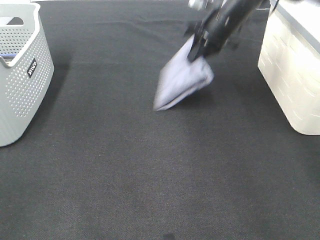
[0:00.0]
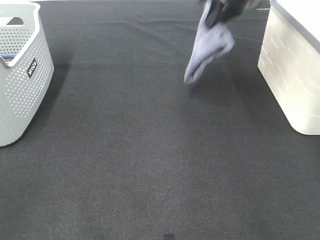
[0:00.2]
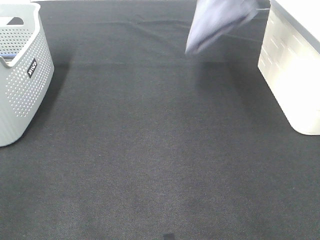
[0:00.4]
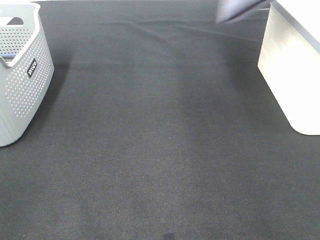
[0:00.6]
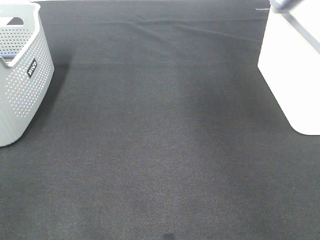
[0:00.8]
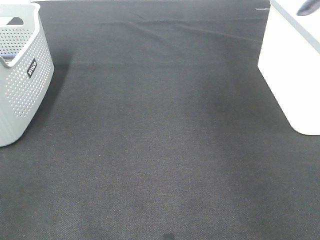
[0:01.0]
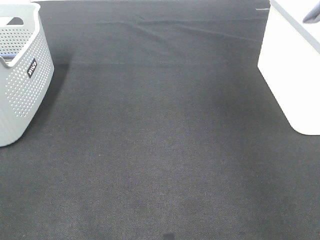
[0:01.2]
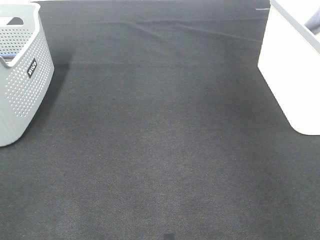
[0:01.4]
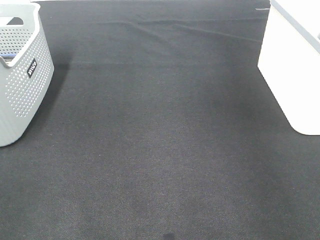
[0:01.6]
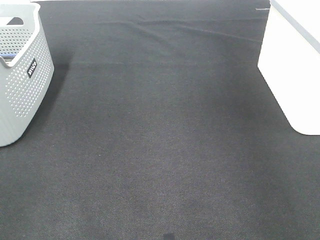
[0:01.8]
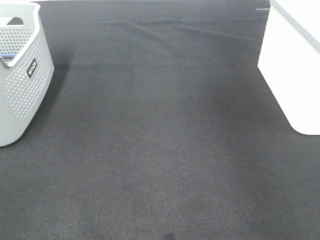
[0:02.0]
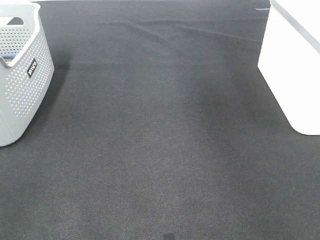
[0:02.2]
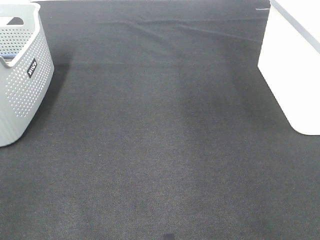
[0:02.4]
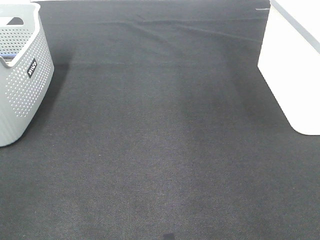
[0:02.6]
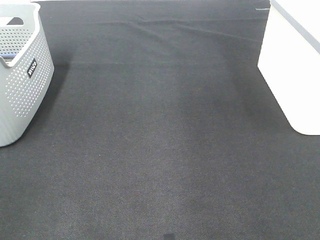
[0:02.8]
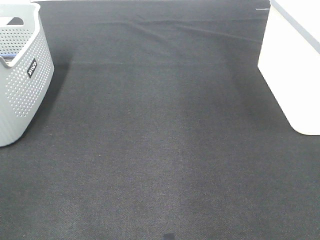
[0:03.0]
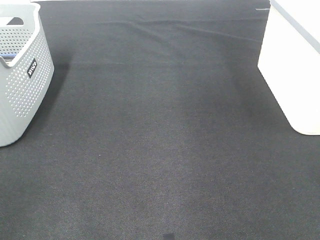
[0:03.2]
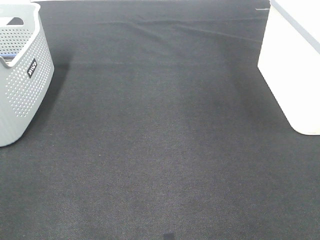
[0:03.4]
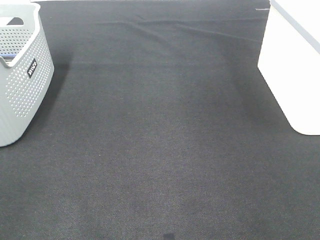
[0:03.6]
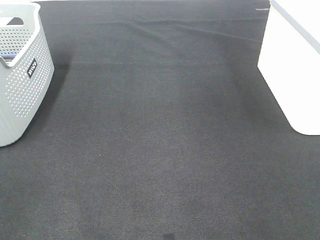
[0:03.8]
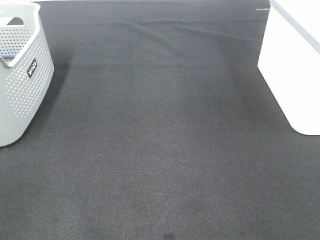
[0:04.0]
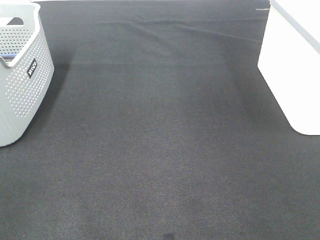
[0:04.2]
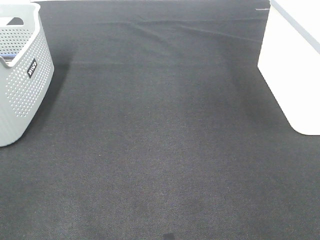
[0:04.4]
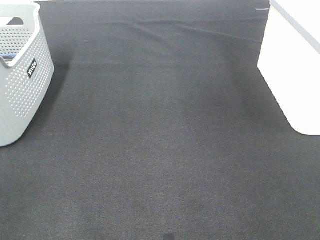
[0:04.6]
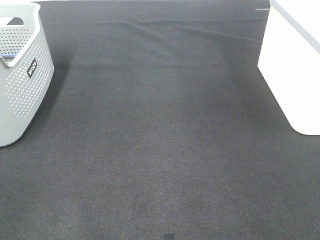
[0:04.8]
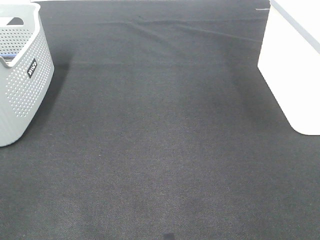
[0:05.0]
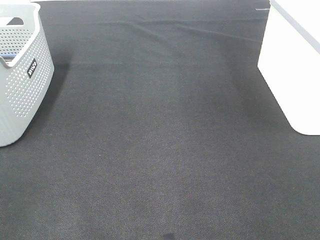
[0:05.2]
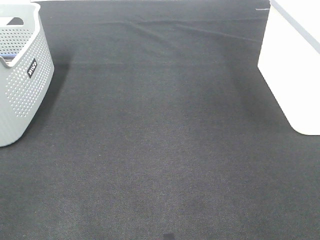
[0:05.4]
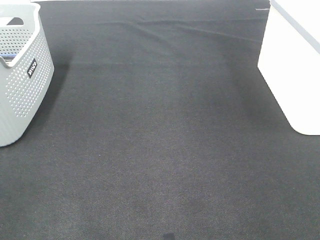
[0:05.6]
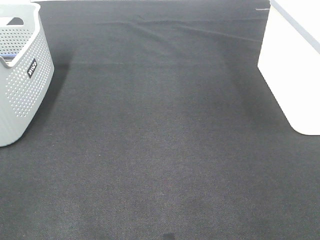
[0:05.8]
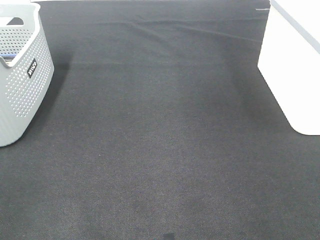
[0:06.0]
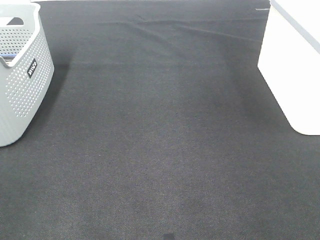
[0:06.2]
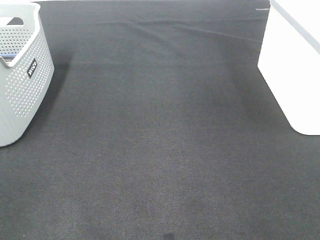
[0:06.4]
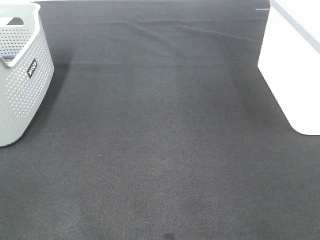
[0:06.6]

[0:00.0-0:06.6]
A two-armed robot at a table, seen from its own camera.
Step, 0:00.0 to 0:01.6: Right hand: place the grey towel in right basket.
0:00.0 to 0:01.6: The right gripper goes approximately 25 cm to the right and upward, and opens up.

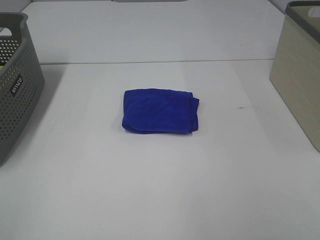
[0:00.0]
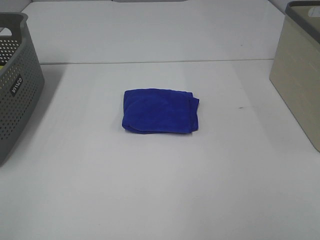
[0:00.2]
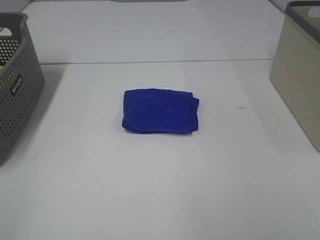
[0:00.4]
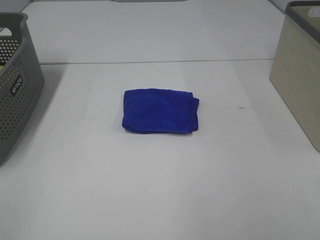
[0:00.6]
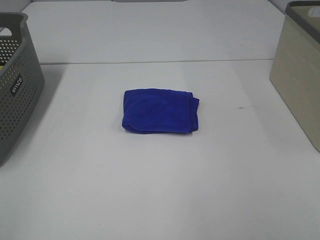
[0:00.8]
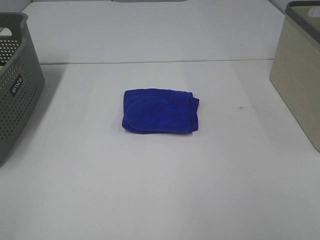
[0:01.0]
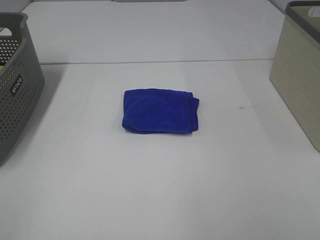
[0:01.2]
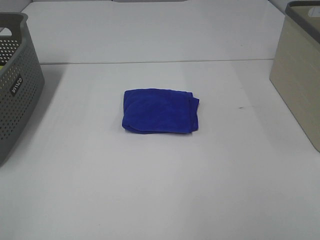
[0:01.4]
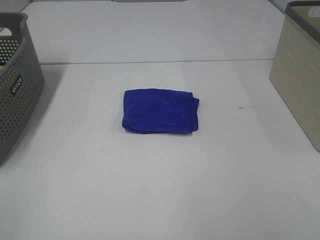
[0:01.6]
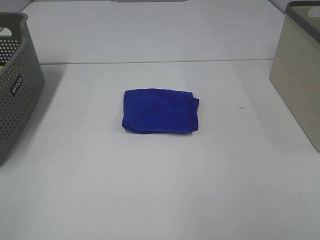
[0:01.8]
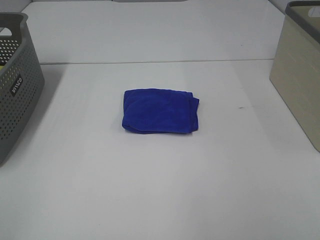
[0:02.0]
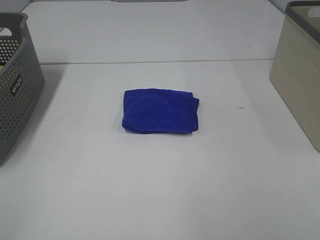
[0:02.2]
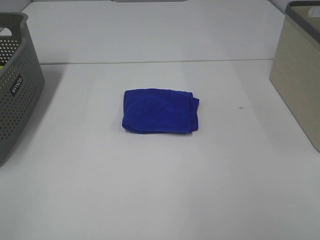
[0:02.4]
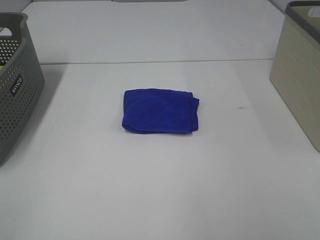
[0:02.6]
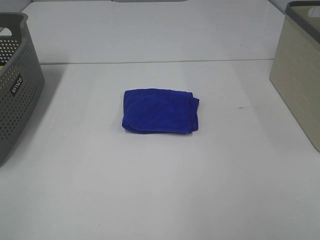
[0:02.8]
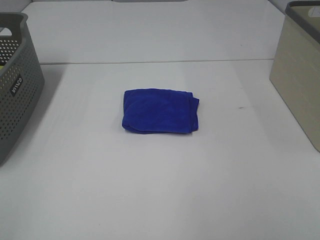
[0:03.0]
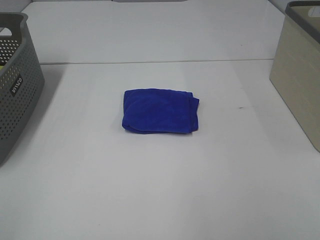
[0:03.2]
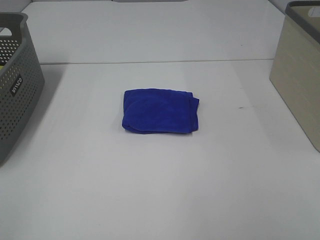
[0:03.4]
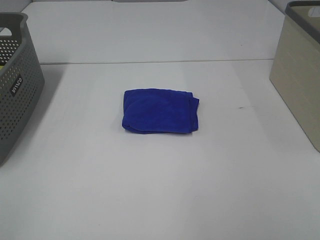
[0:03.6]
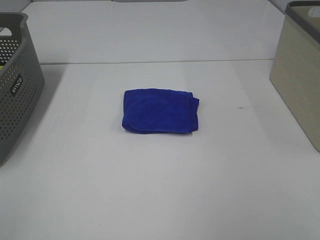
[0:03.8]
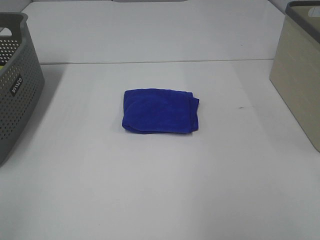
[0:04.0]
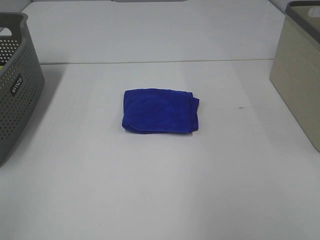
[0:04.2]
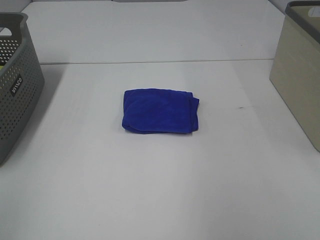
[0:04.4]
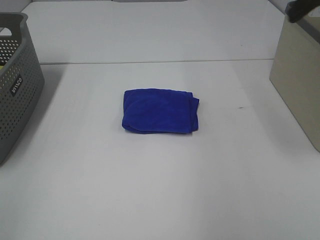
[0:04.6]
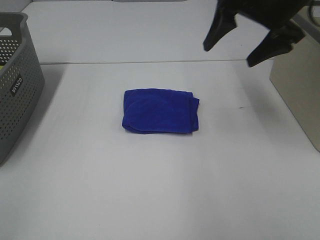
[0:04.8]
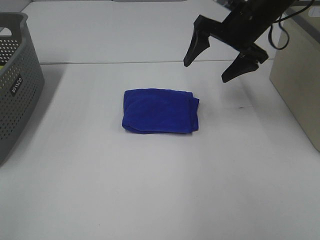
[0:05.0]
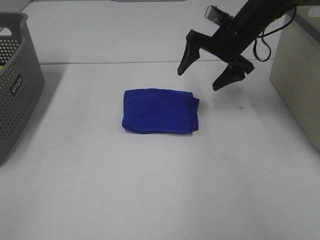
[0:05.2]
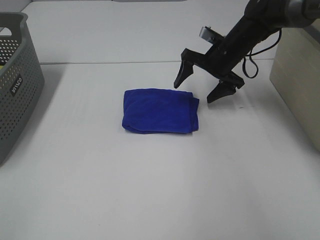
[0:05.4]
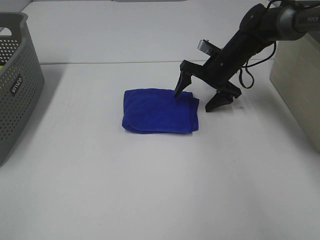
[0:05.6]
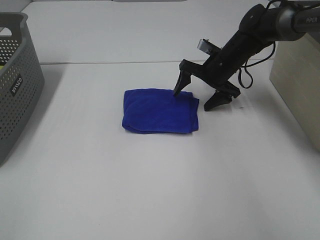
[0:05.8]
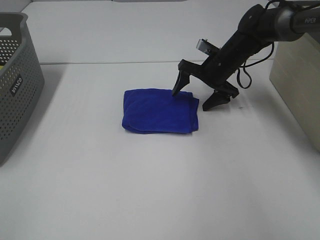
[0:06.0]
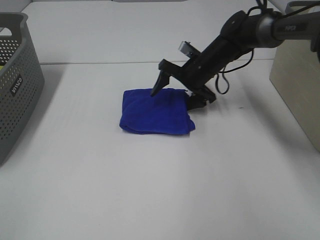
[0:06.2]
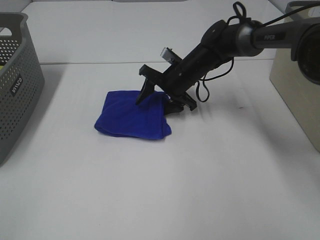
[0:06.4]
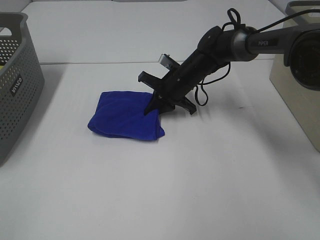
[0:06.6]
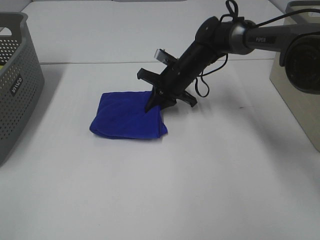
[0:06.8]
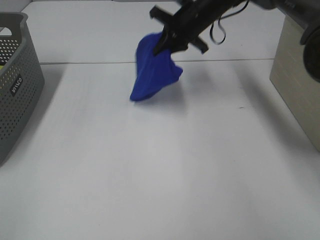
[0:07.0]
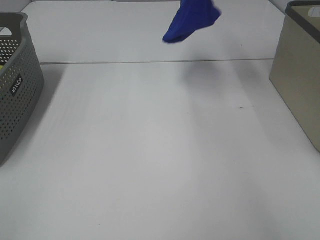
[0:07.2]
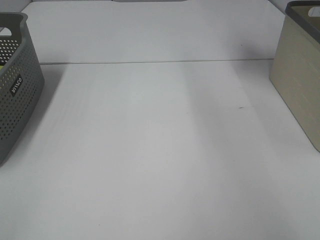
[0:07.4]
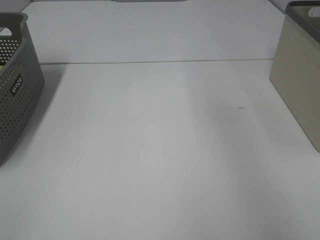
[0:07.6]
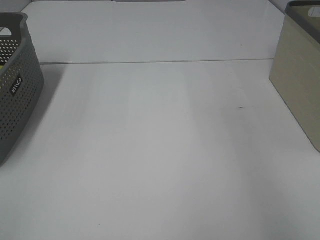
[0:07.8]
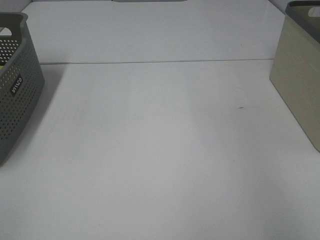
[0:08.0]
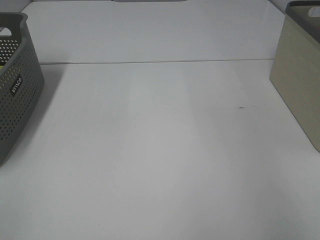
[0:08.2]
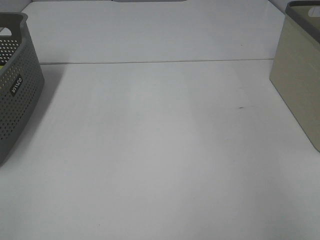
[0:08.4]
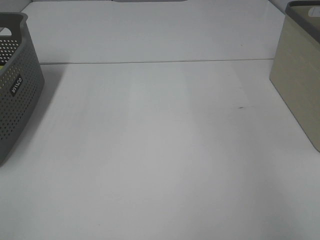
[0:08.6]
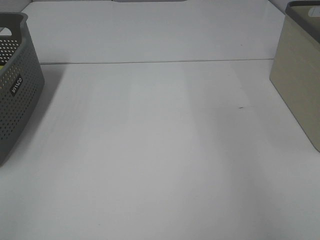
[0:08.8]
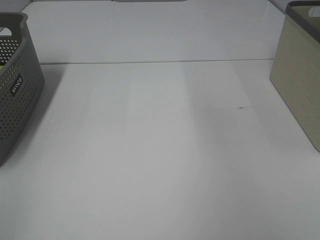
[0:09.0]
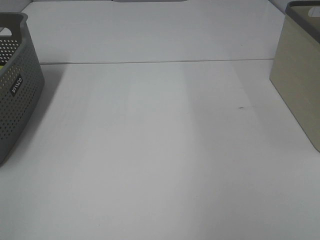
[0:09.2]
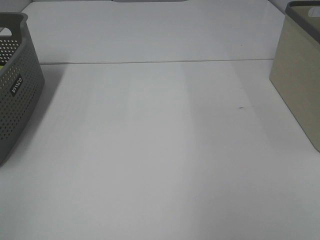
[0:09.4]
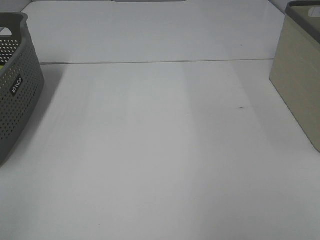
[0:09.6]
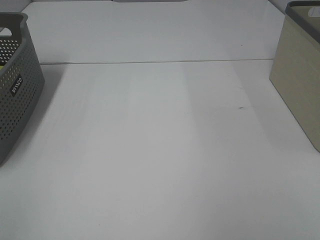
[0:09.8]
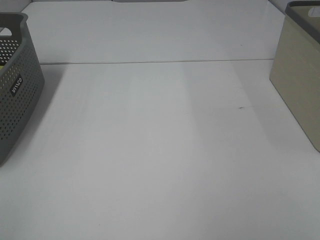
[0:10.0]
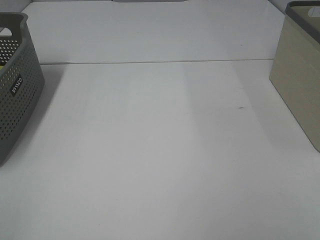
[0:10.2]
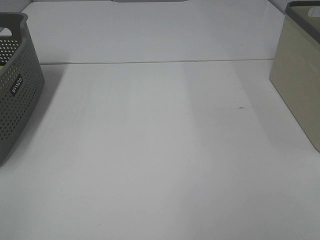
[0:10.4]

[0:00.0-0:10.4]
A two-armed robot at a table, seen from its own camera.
Step, 0:00.0 to 0:06.6: Right hand: grab the folded blue towel.
Step, 0:06.8 to 0:08.6: Right hand: place the blue towel in right basket.
0:00.0 to 0:03.0: The two grippers keep their place.
0:04.4 to 0:06.0: The right gripper heads downward, forward and to the left, covering roughly 40 cm.
0:06.0 to 0:07.4: The right gripper moves upward and to the right, roughly 35 cm, and closes up.
0:07.4 to 0:09.0: The right gripper travels backward by about 10 cm, moves roughly 10 cm downward and comes back, and opens up.

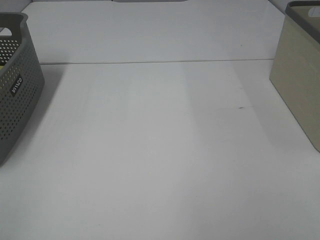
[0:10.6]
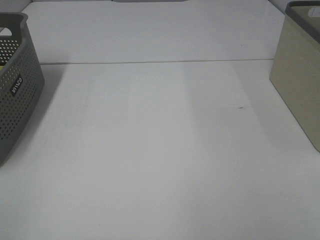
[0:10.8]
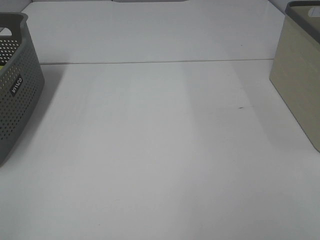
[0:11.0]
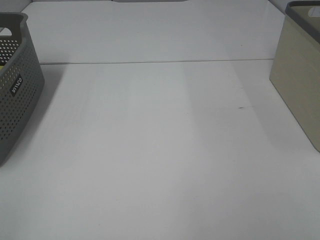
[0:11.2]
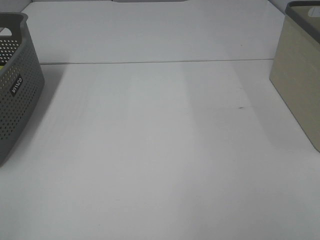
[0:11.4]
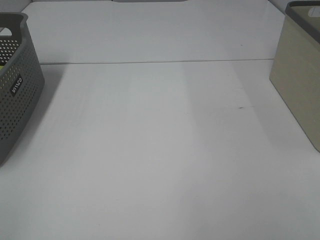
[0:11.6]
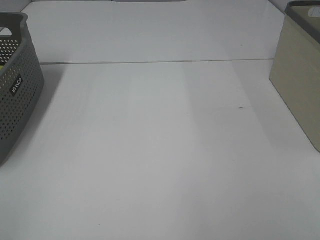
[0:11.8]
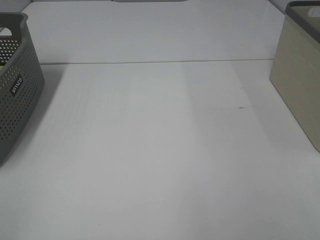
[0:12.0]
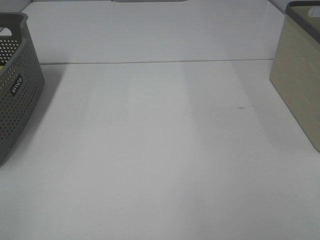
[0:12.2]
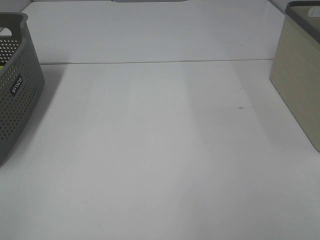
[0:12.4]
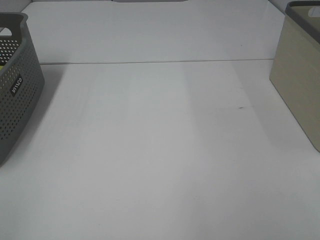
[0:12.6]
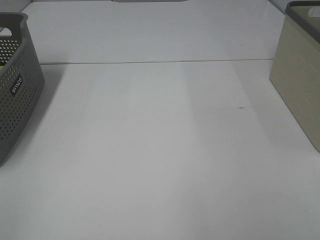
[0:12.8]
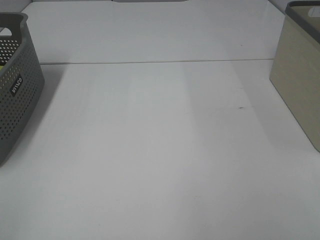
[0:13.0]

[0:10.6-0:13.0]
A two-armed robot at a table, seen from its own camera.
0:11.8 to 0:13.0: The two grippers keep their place.

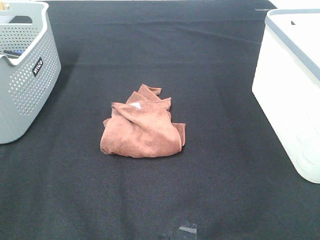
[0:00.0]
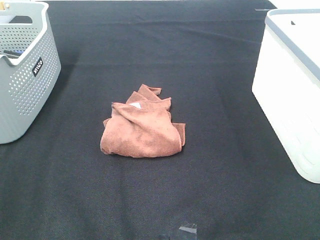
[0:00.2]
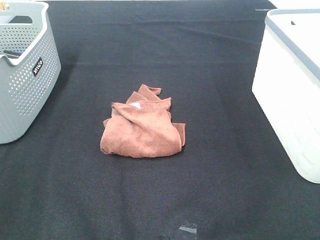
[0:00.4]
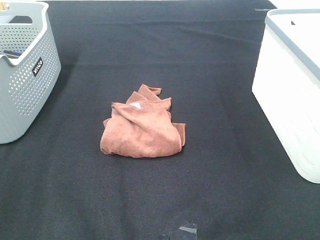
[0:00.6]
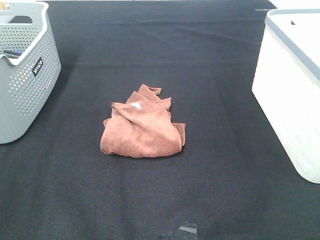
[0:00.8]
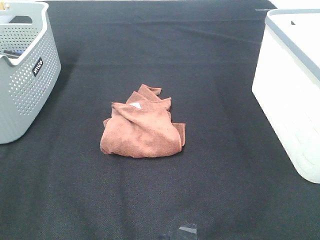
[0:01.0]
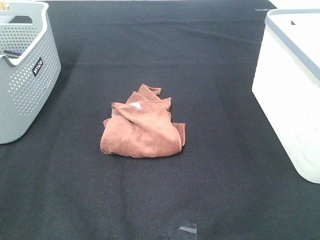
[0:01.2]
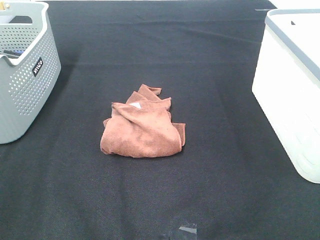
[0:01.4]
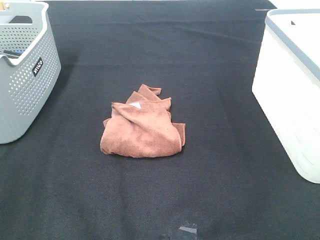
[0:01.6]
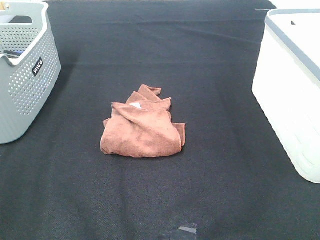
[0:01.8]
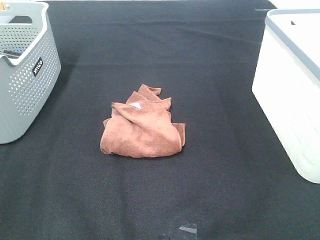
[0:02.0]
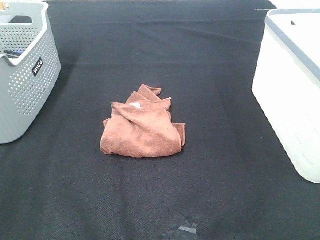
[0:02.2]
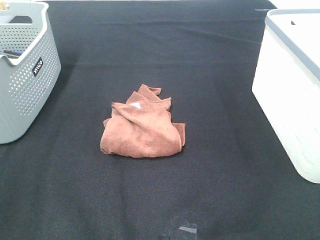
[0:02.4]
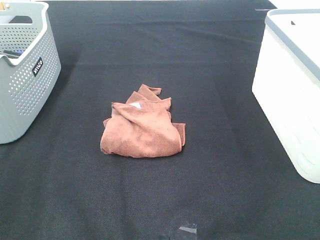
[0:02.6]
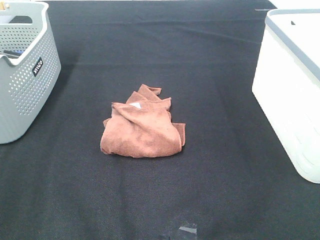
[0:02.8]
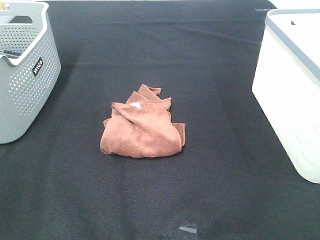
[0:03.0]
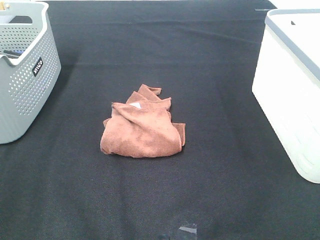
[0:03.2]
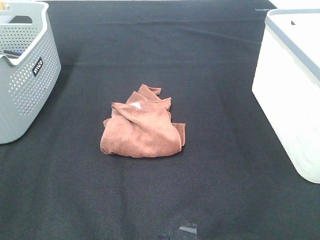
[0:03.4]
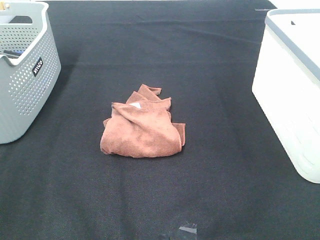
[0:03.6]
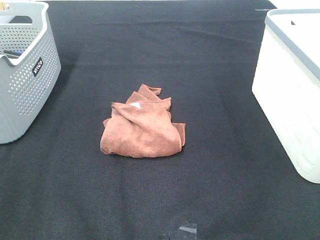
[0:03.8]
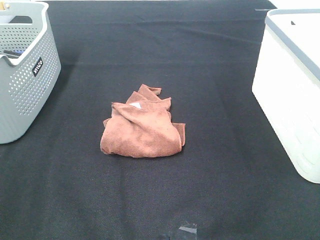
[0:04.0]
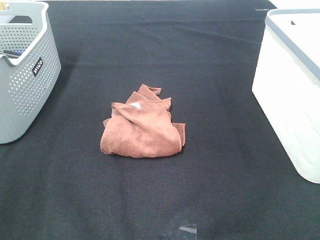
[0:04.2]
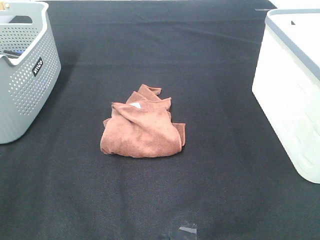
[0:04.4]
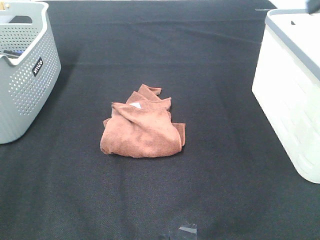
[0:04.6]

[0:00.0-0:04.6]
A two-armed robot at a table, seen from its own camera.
0:00.0 to 0:03.0: Both grippers stay put.
